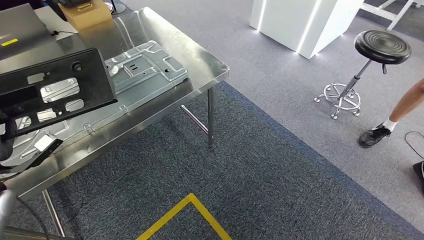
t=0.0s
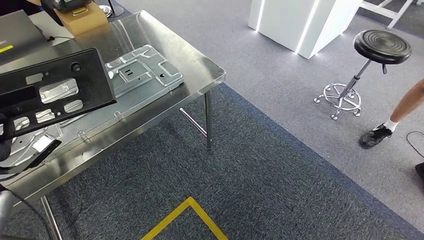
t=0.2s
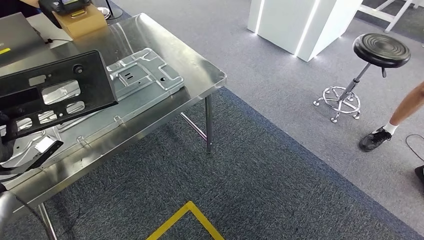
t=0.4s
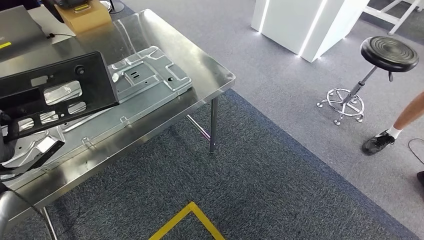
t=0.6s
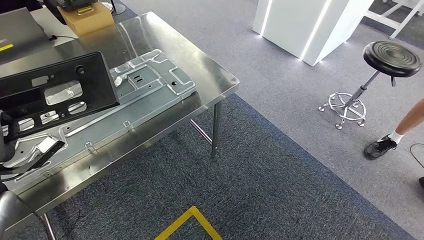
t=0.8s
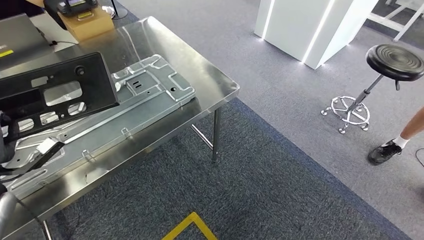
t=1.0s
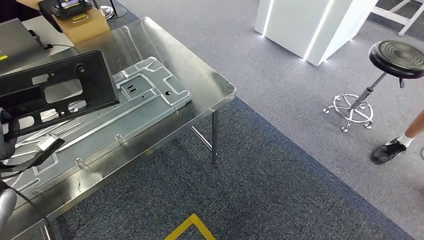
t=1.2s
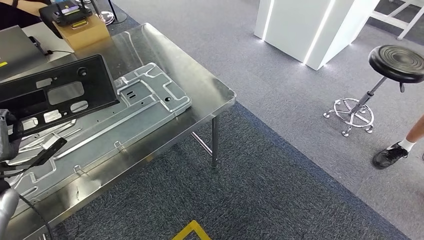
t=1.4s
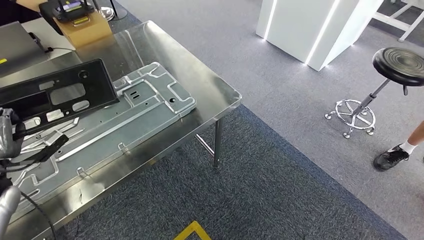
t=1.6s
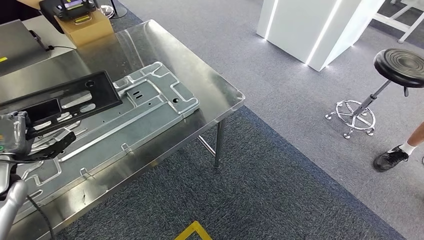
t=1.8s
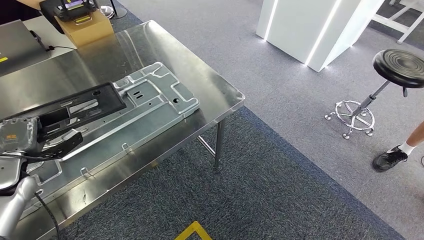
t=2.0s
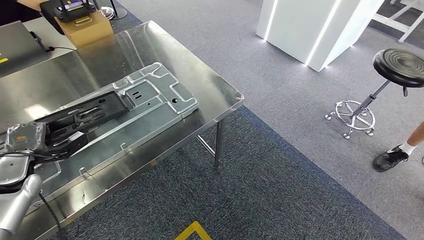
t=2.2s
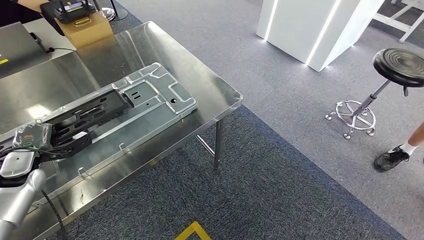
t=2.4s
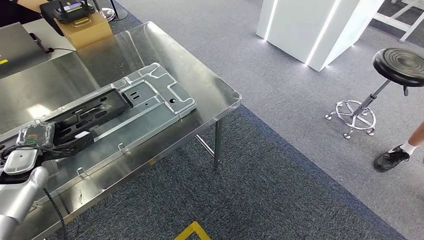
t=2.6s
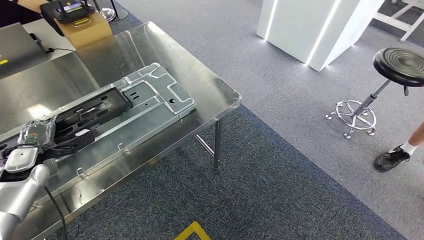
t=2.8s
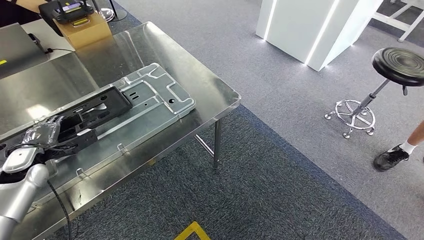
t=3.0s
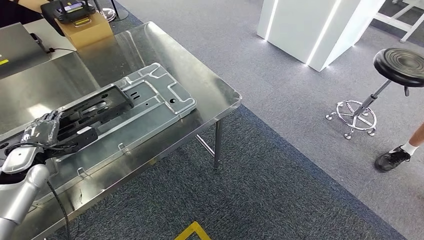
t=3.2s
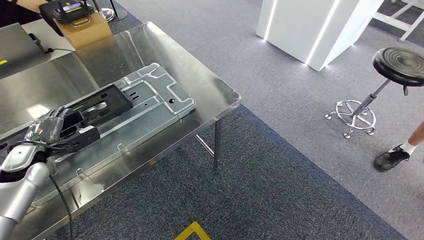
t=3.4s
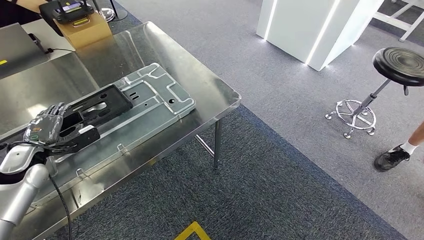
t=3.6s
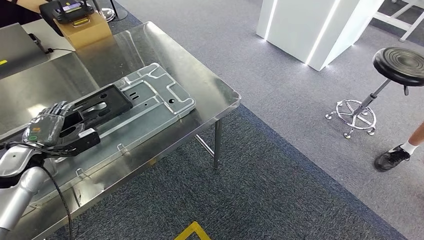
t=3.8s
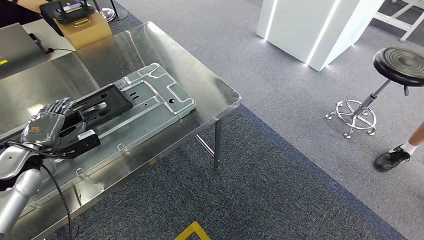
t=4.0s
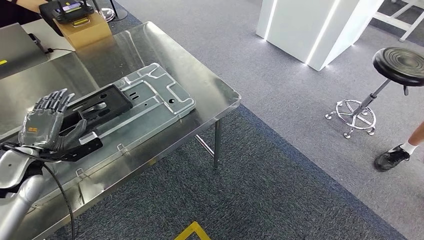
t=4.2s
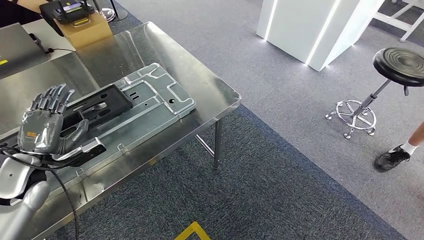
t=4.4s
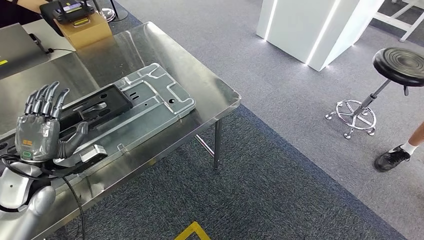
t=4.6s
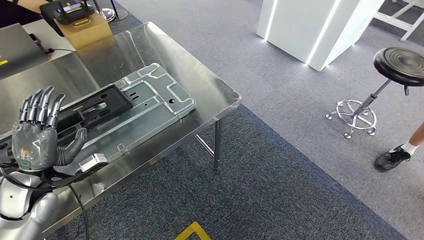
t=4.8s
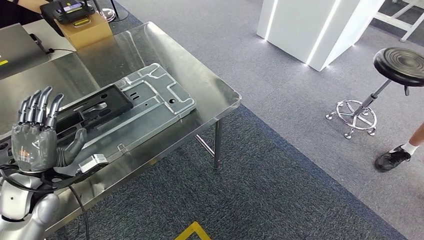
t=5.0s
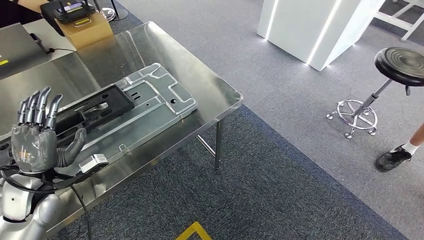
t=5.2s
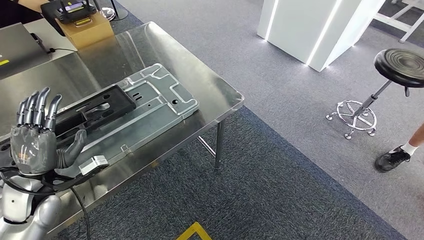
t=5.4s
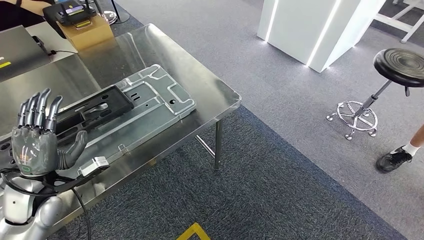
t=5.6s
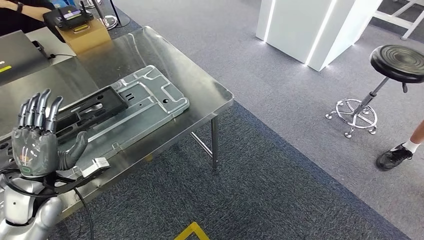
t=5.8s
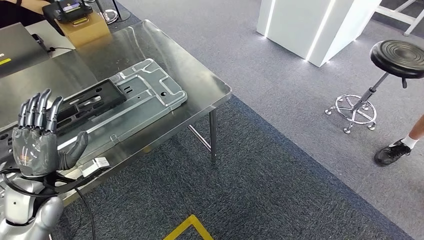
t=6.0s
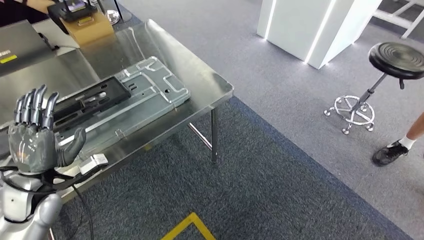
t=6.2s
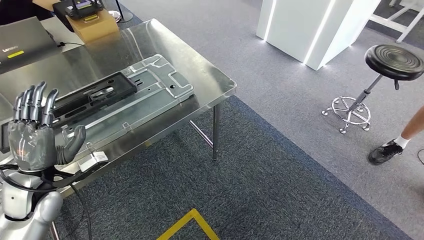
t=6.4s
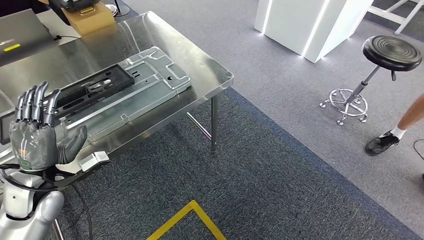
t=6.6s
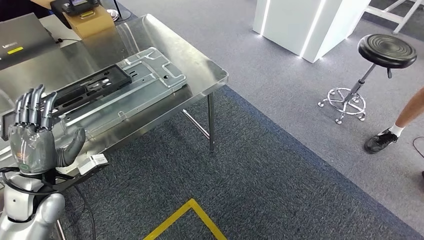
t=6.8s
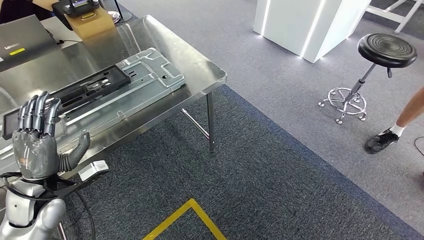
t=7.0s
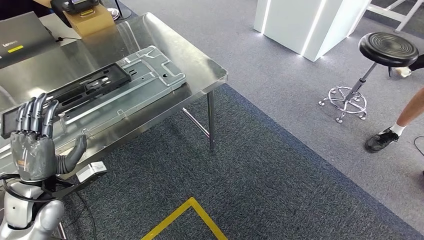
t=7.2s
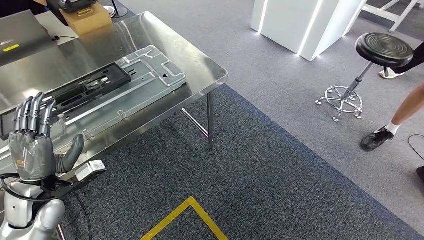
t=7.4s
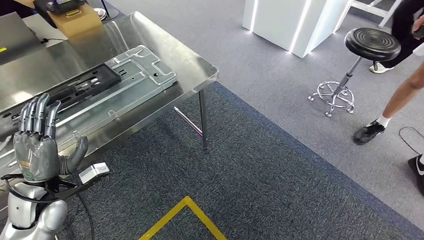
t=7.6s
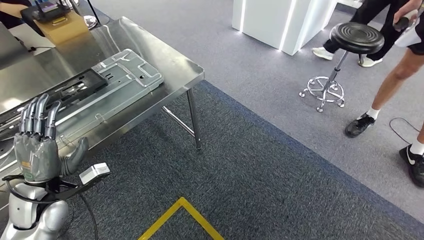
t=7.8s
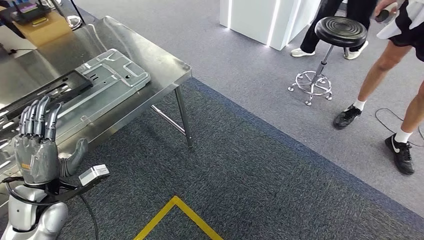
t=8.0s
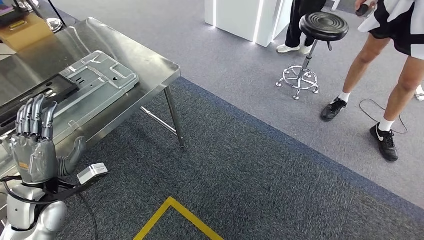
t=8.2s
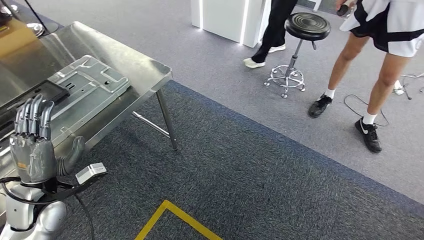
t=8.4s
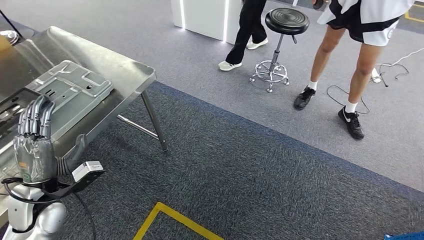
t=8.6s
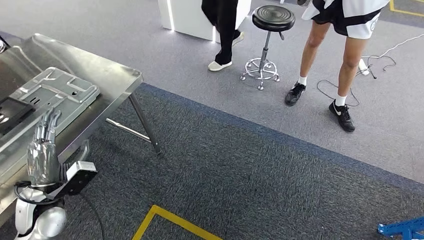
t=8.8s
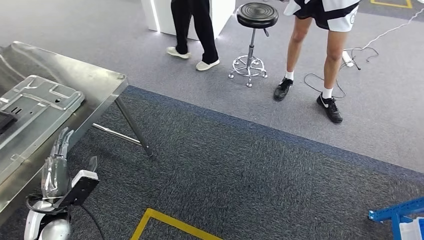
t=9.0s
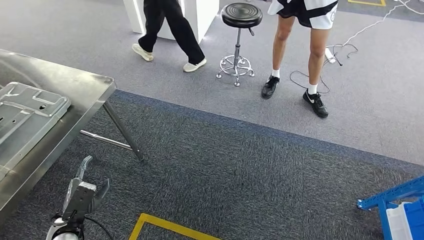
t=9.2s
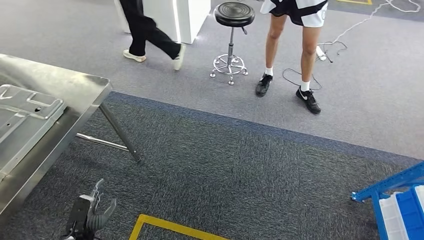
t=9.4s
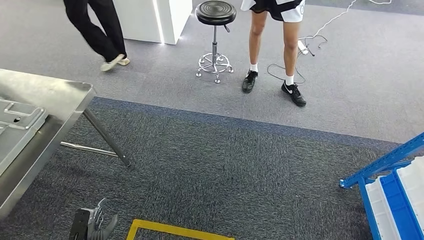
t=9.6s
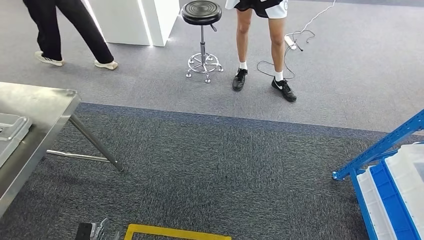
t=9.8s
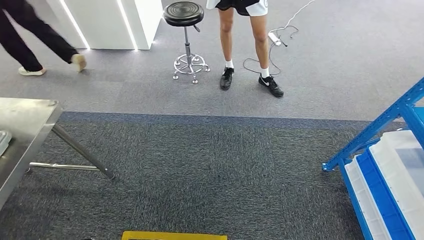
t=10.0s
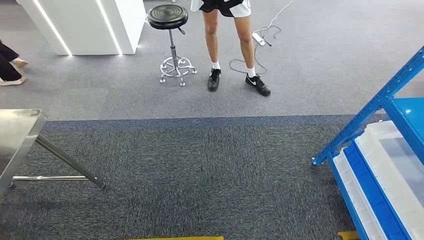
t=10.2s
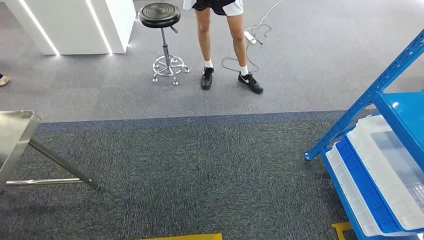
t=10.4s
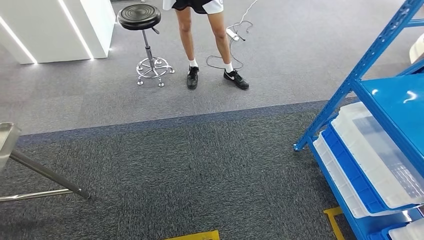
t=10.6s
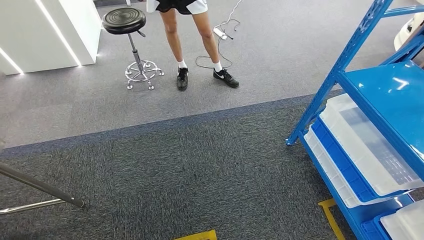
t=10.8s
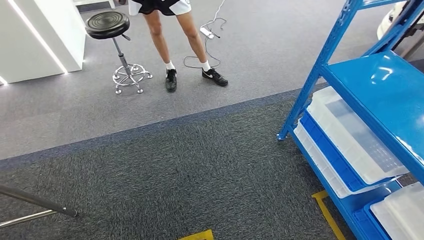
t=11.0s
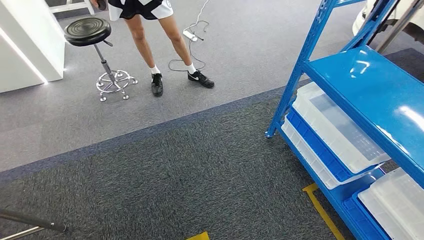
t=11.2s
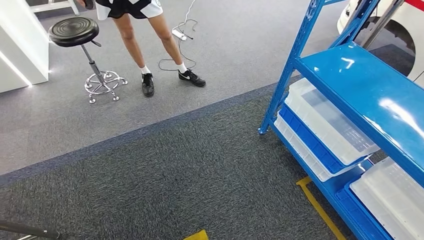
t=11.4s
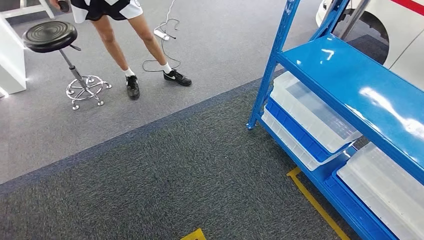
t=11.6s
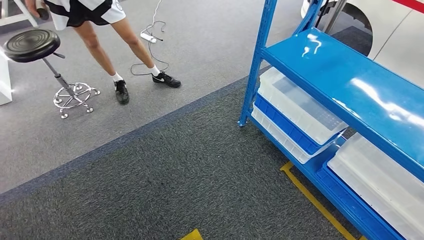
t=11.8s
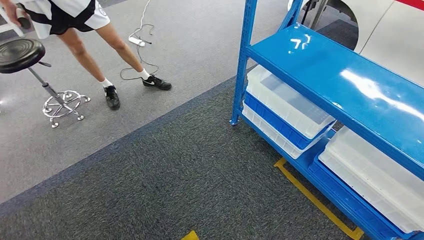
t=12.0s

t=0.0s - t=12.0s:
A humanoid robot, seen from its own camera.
Step, t=0.0s - t=7.6s: Insert the large material into the corresponding slot on the workbench.
t=1.6s - t=3.0s: The left hand heads forward, covering about 5 cm.
t=3.0s - t=4.4s: The left hand heads backward, covering approximately 5 cm.

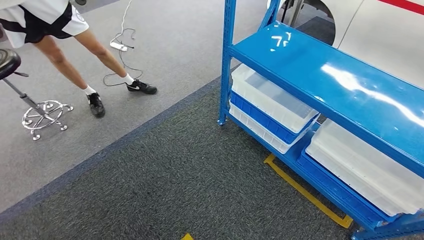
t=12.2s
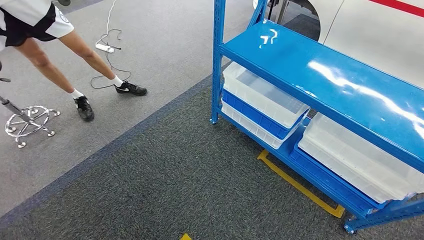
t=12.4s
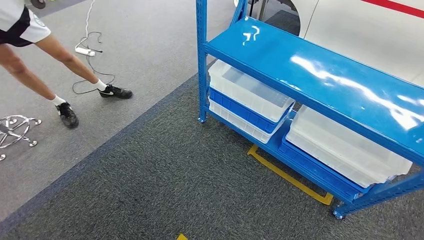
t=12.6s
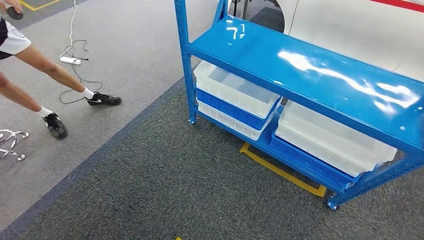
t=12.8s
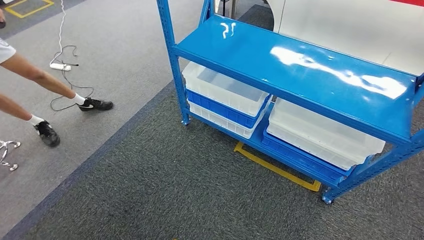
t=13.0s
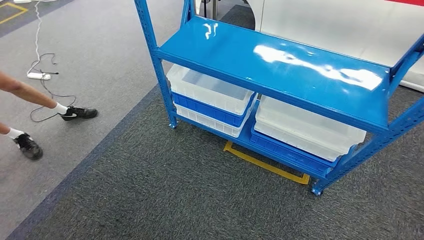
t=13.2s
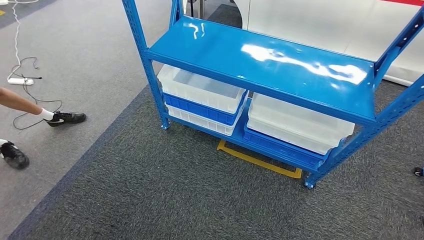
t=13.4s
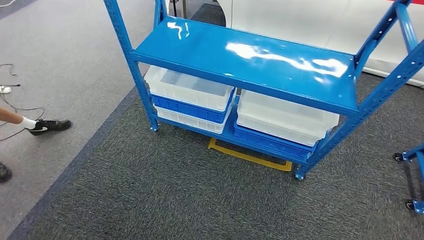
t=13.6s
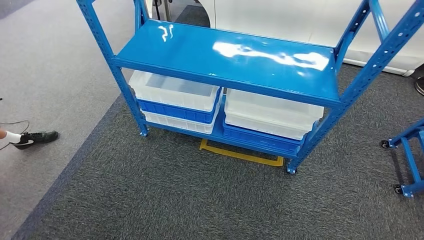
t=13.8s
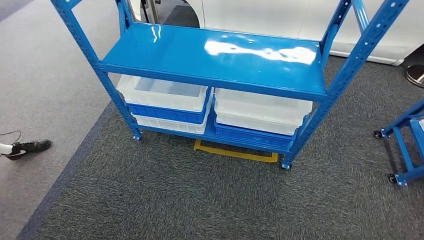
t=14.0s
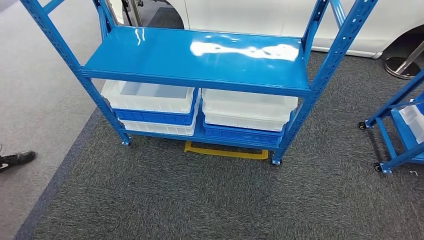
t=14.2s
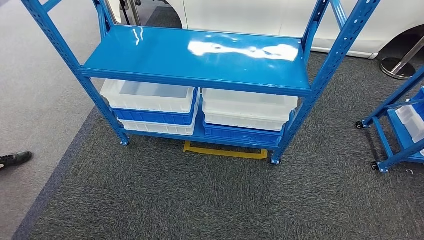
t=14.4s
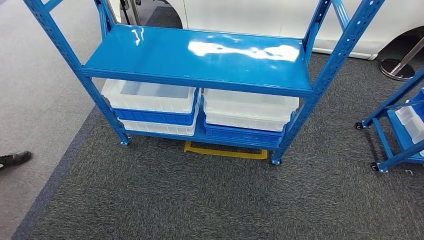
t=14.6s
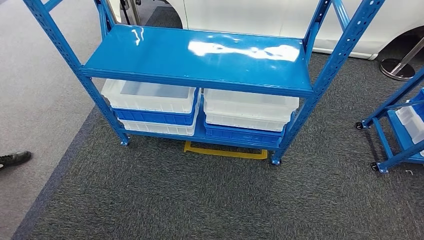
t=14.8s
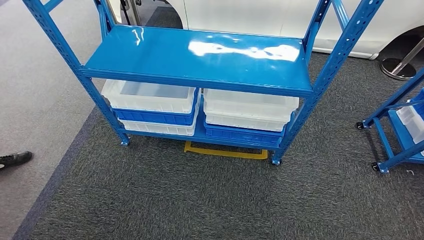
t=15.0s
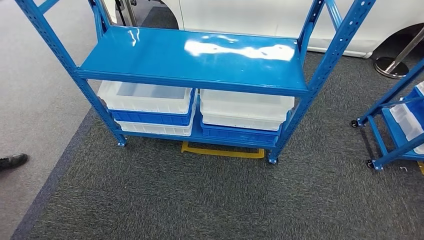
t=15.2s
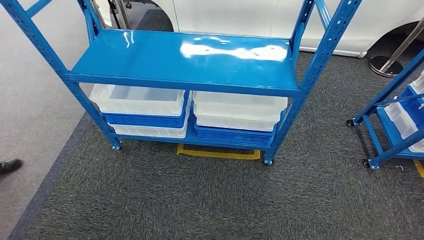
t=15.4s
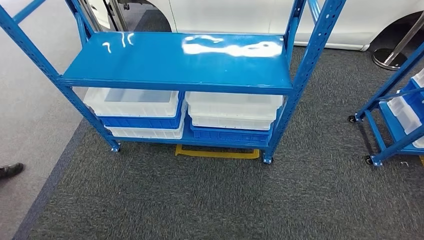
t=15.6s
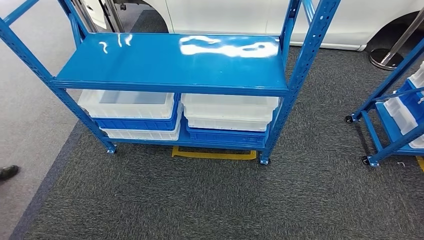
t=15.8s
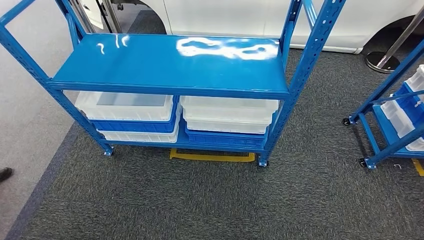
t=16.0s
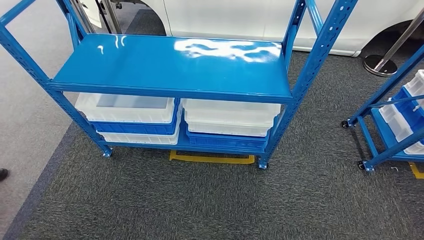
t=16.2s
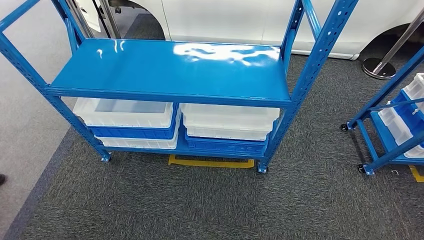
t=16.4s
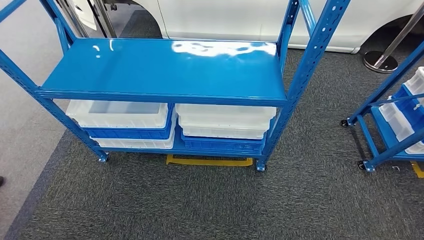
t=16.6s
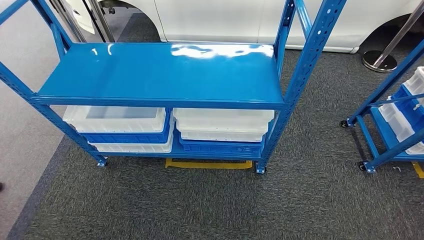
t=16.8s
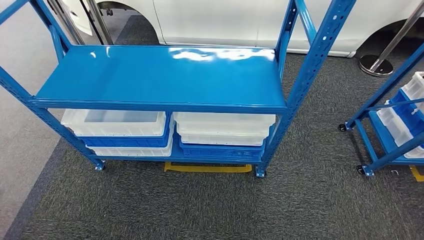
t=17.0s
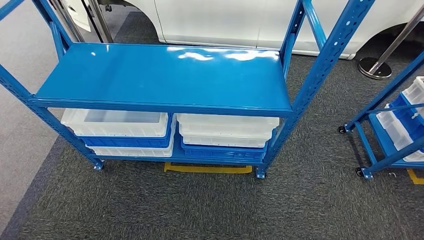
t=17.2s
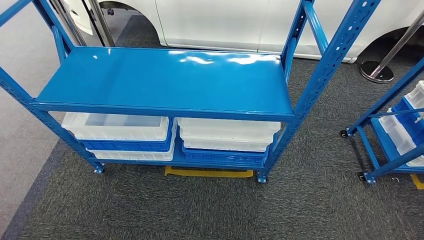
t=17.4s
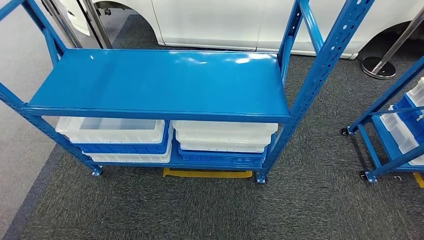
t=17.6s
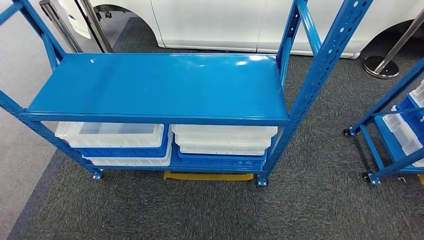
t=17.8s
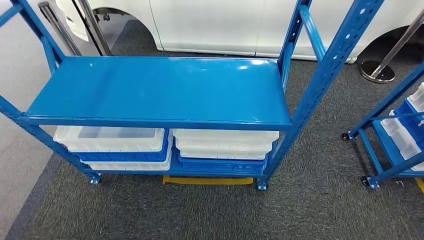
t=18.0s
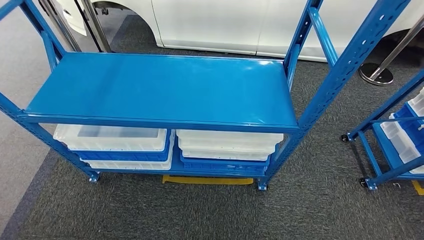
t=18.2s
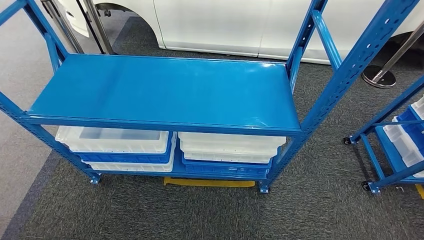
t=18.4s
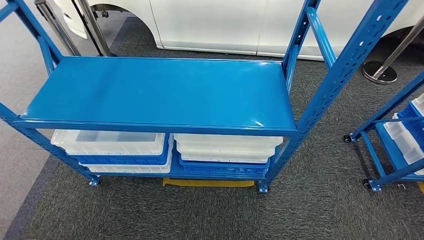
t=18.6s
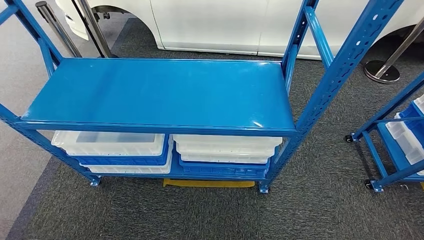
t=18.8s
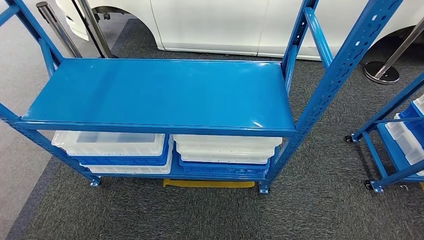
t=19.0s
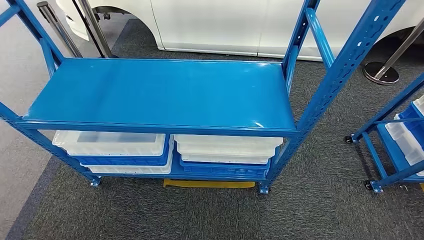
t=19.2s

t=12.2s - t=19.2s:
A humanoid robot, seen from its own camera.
Step, t=12.2s - t=19.0s: Return to the initial position at the shelf.
